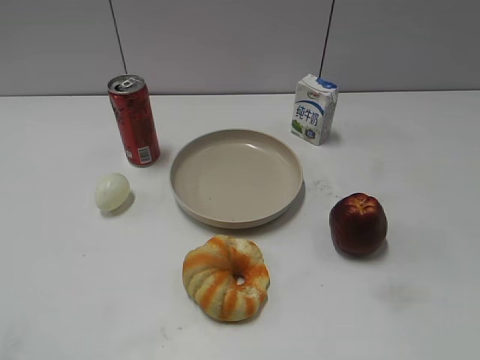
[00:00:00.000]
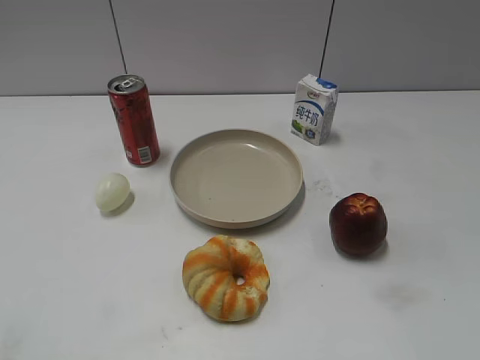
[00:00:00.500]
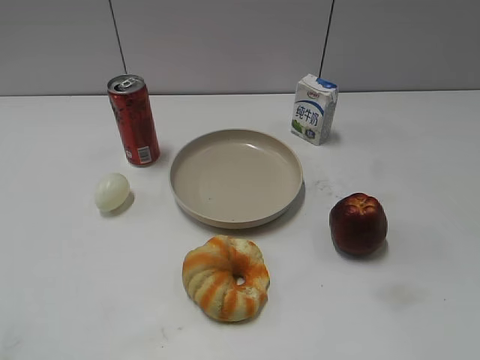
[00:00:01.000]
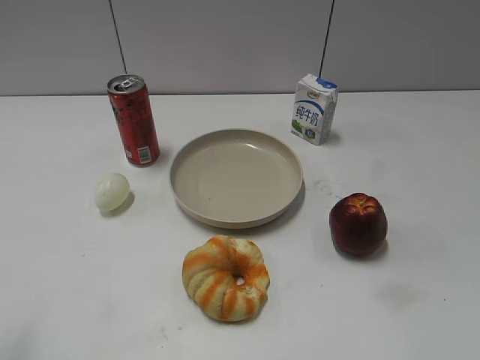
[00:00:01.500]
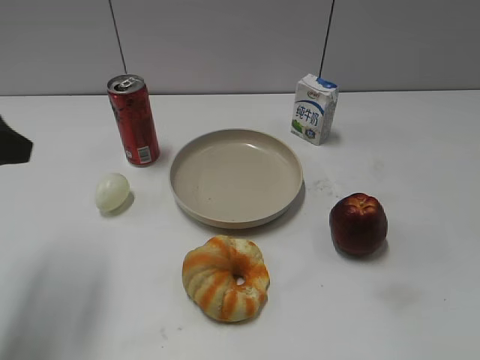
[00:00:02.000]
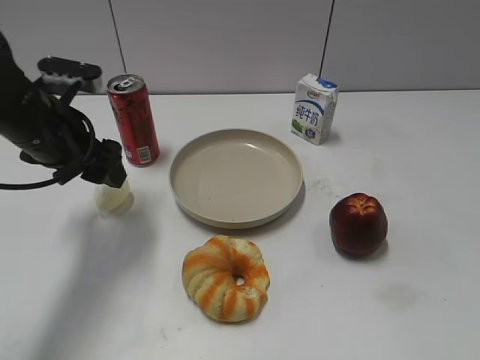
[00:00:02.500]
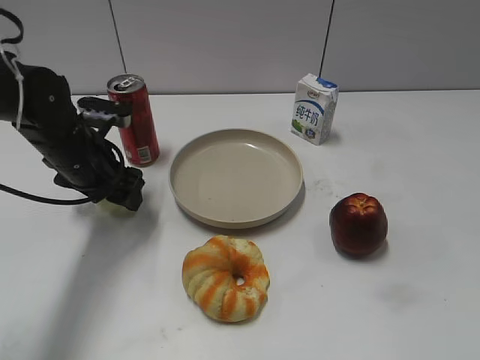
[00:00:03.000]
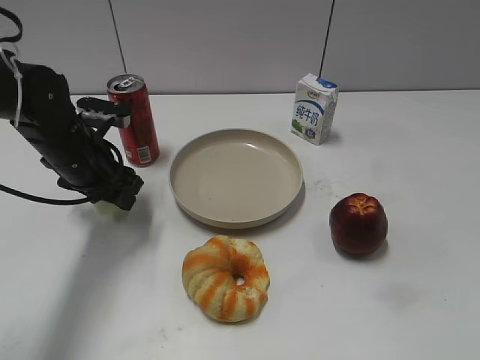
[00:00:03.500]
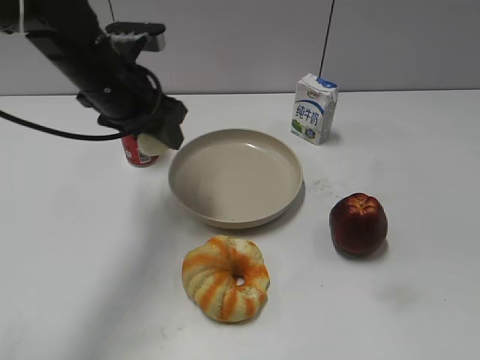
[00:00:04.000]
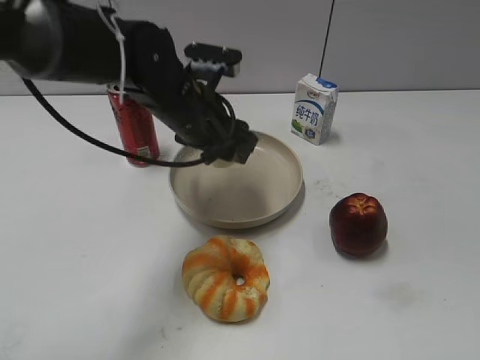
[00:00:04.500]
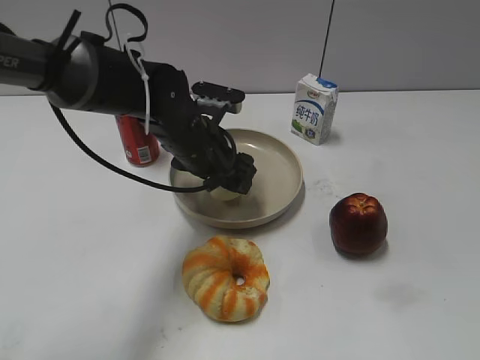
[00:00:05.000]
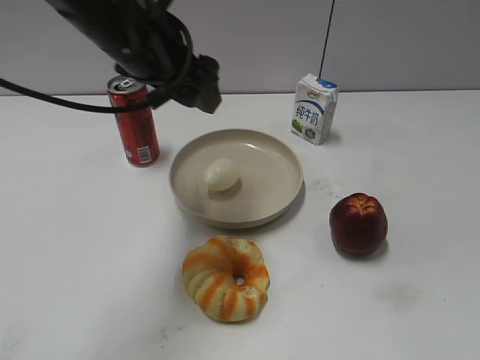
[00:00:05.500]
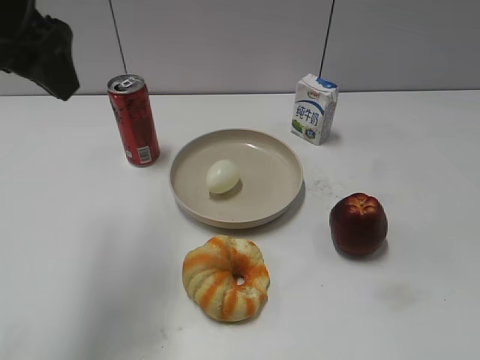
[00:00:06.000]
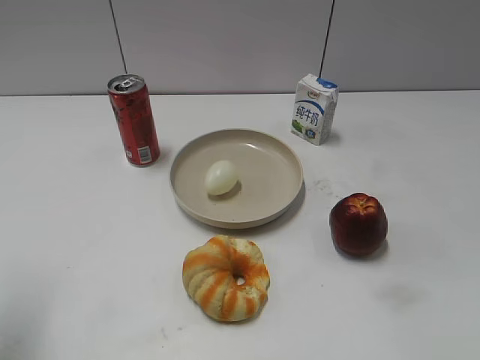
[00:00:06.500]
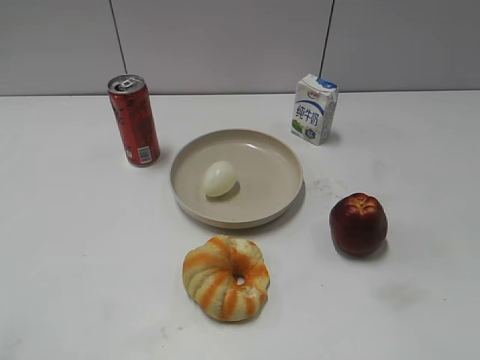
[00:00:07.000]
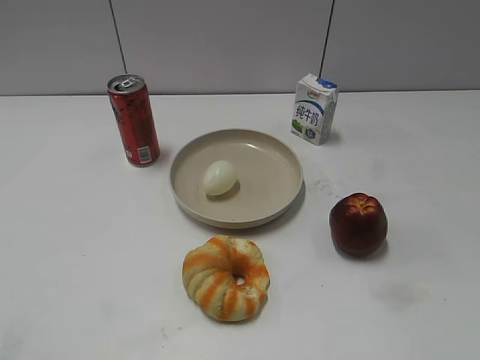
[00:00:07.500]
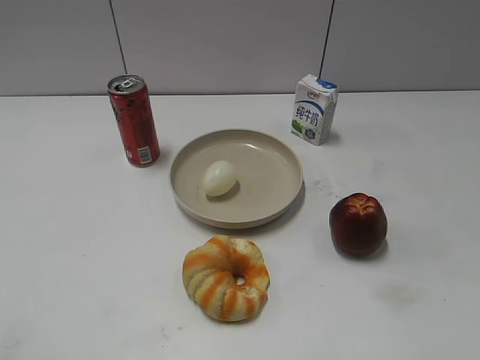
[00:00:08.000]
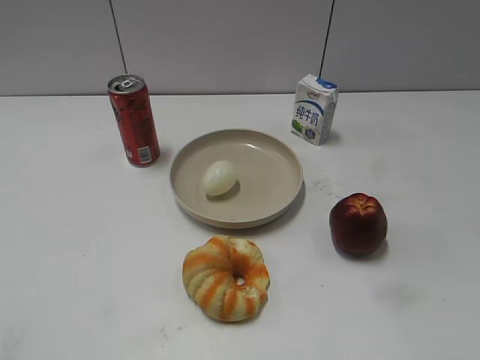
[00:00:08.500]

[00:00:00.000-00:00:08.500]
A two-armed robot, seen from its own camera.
Step, 00:00:01.000 to 00:00:03.000: Grasp the egg with left gripper.
Step, 00:00:03.500 to 00:00:05.000: Place the egg on the plate with left gripper.
00:00:02.000 to 00:00:04.000: The left gripper shifts roughly 20 cm forward, to the right and downward, and closes.
00:00:04.000 to 00:00:06.500: The left gripper goes roughly 25 cm backward, to the left and upward, and opens.
